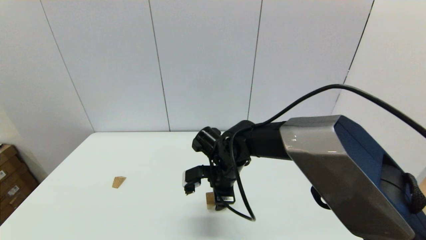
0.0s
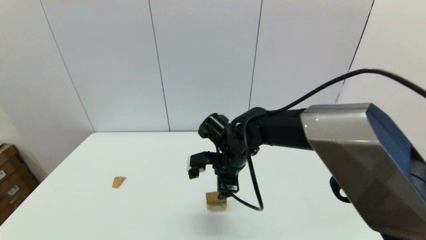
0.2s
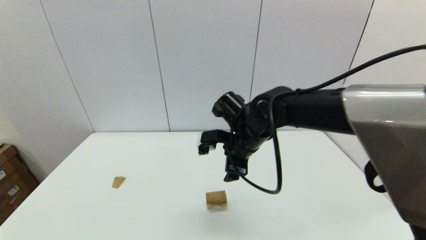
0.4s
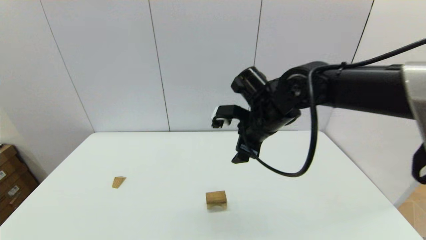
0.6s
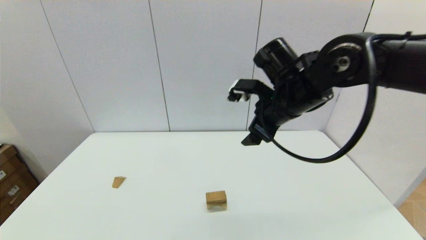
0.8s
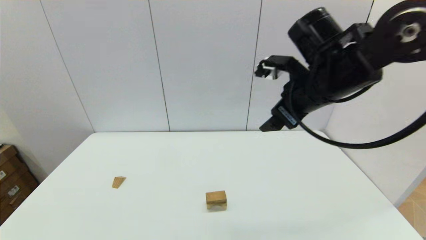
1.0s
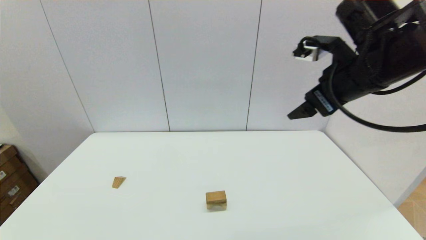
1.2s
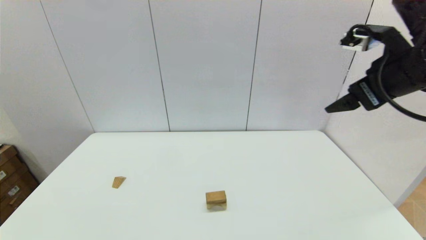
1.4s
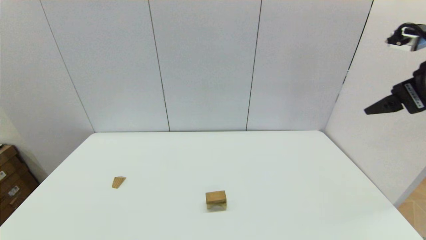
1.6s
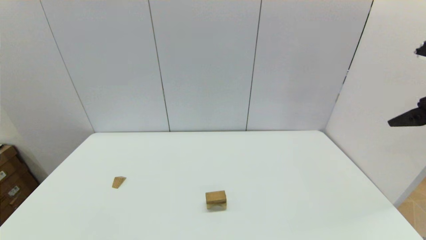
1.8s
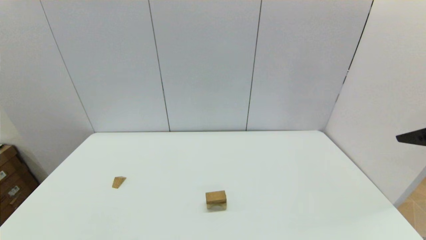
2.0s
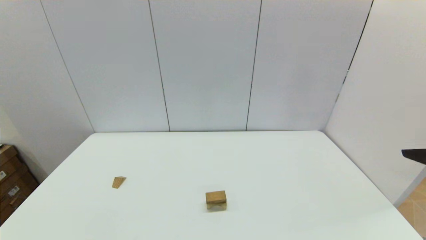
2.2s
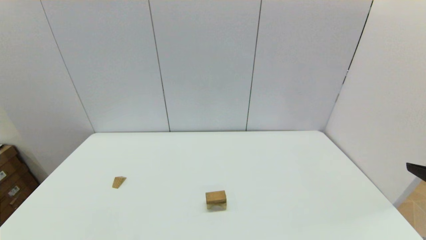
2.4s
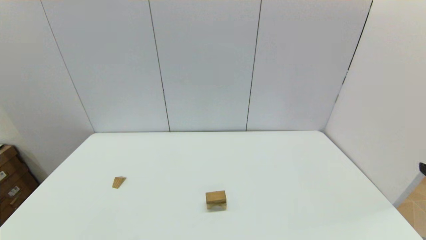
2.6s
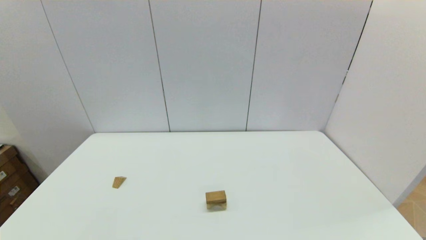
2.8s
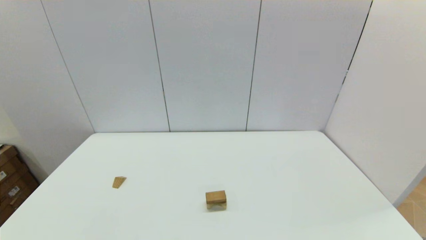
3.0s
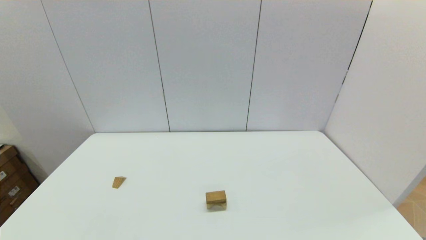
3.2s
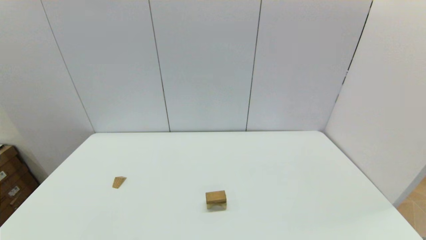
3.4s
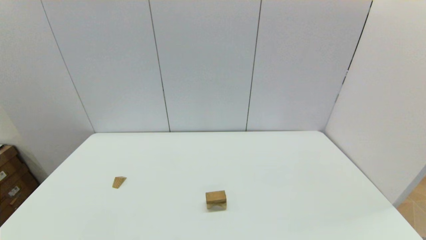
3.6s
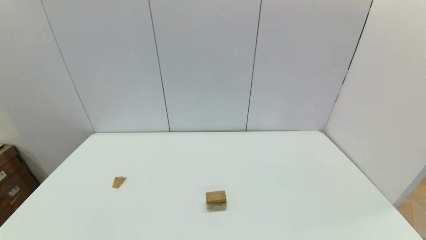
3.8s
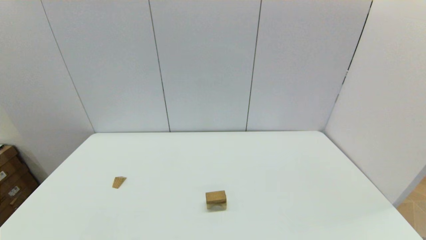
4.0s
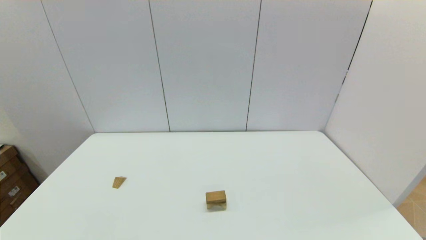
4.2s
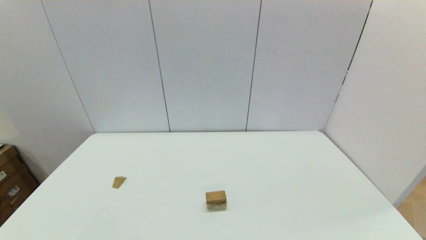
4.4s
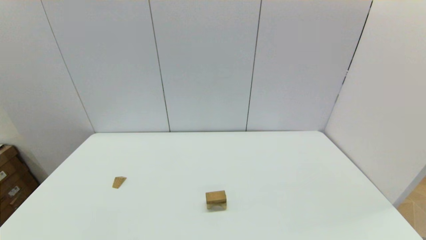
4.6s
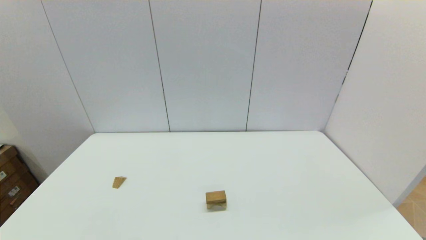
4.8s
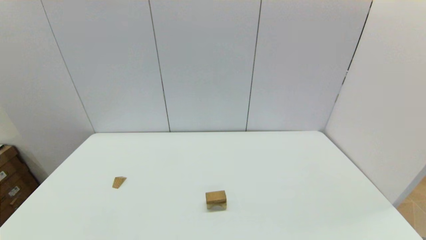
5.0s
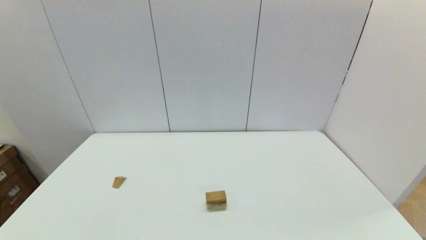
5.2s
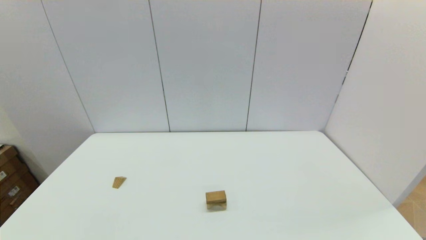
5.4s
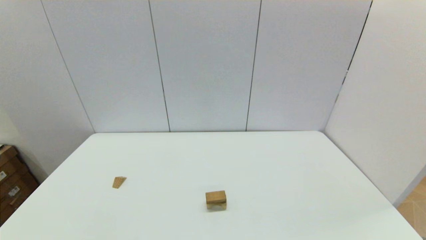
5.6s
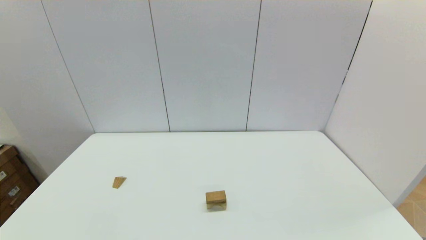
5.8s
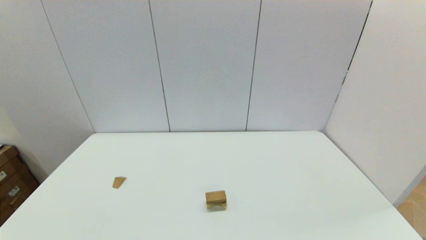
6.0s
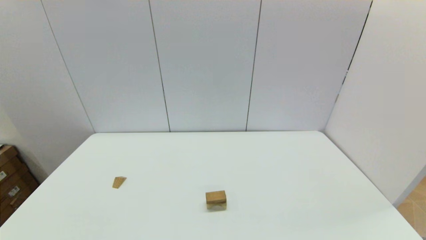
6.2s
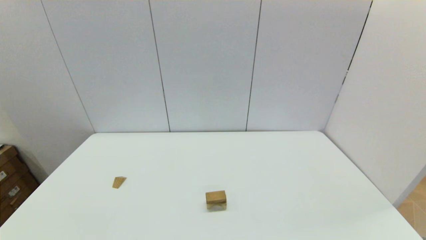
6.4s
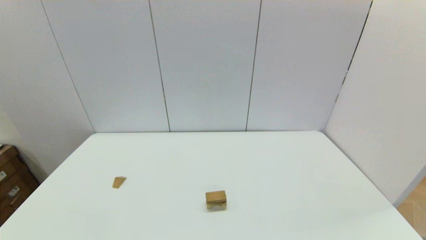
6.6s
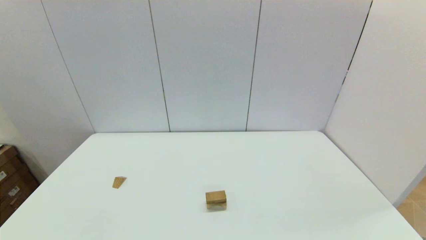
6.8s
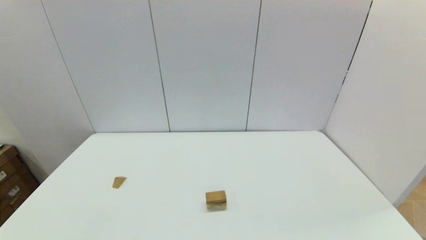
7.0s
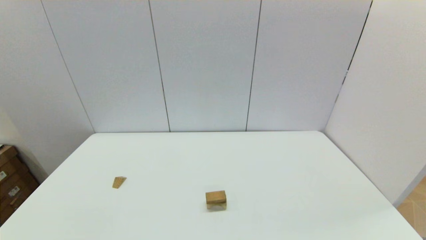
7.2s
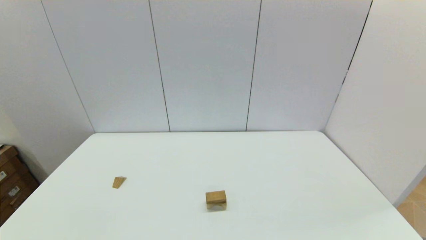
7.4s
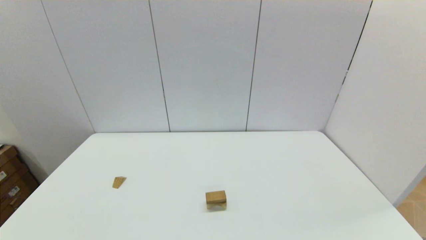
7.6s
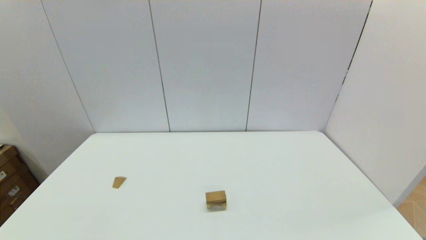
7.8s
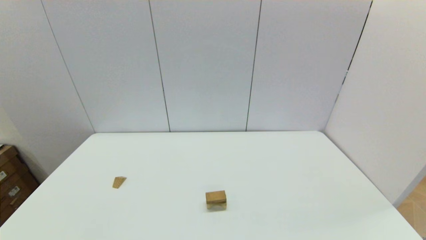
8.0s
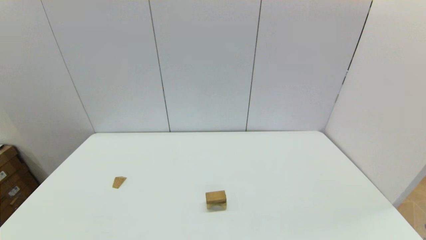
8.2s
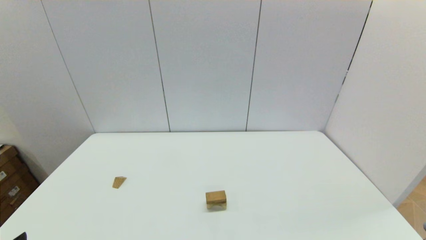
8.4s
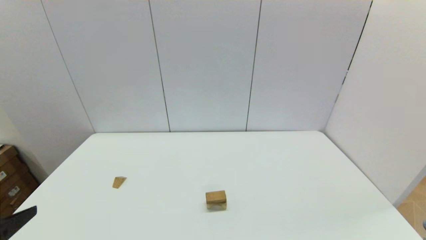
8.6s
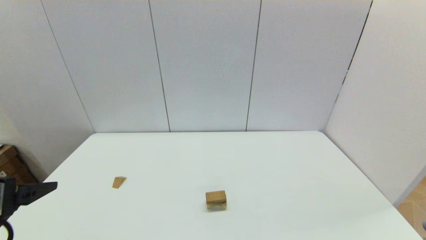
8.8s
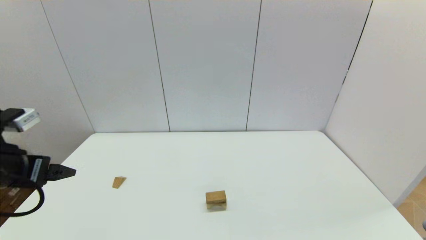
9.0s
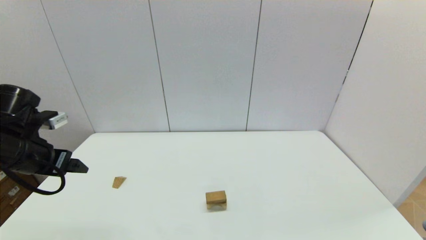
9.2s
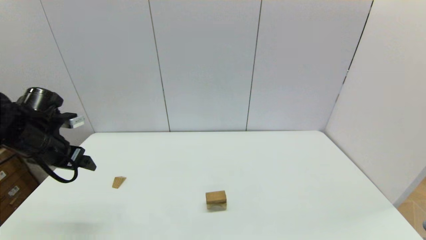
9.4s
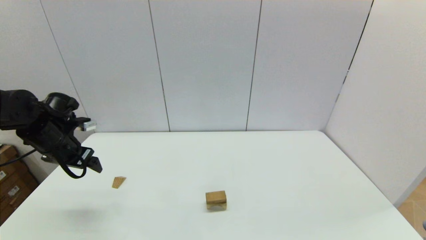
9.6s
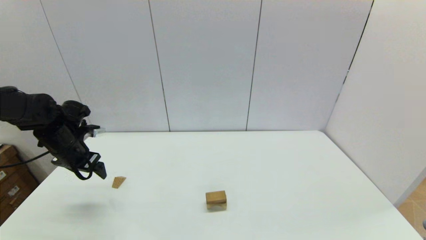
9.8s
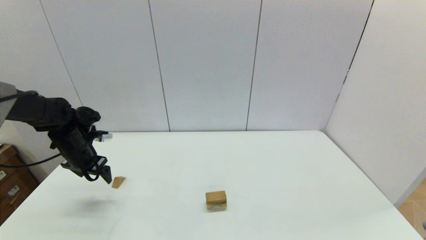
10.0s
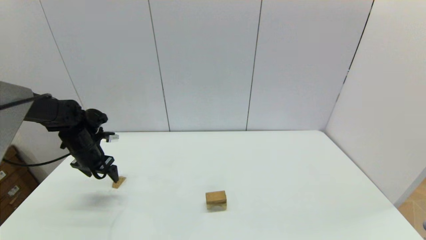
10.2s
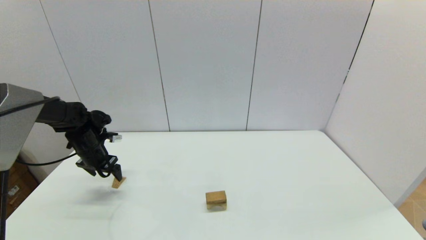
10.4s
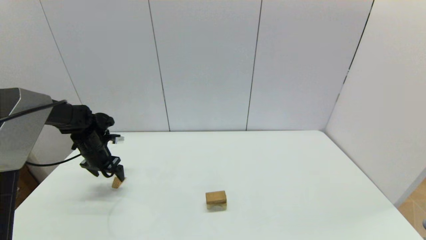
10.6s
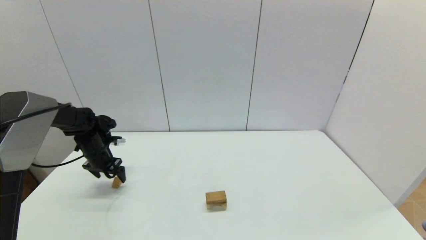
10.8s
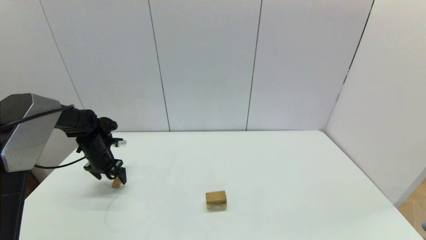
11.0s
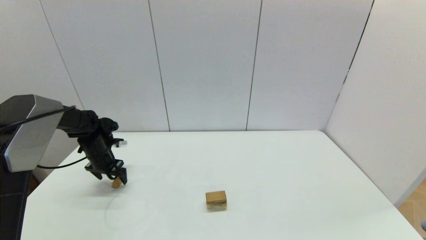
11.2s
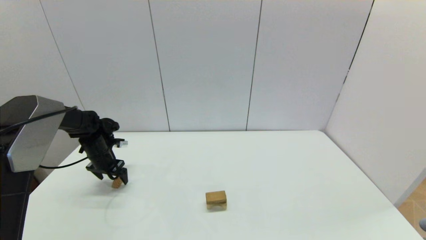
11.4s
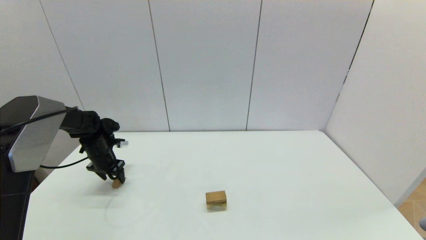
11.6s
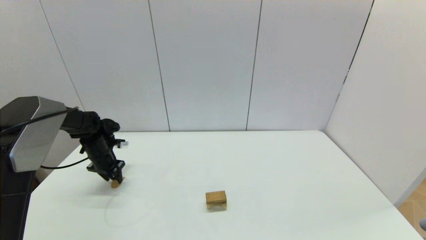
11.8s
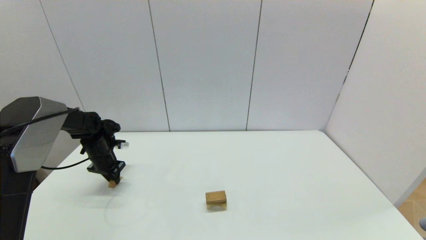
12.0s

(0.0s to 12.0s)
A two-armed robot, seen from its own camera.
Task of the whole recording: place the arched building blocks in the center of the table, set up the rectangular building blocks, and then set up the triangular building blocks.
Step, 0.2s - 11.8s: Grasp the triangle-shaped block with the left gripper.
0.0s - 1.6s: The right gripper moves to the right and upward, some 40 cm.
1.6s - 3.0s: The right gripper shifts approximately 25 cm backward and downward.
6.0s - 7.6s: Neither gripper changes place.
7.6s - 9.0s: The left gripper moves forward and upward, approximately 25 cm.
9.0s - 10.4s: The left gripper travels forward and downward by roughly 25 cm.
10.4s - 12.0s: The left gripper closes up.

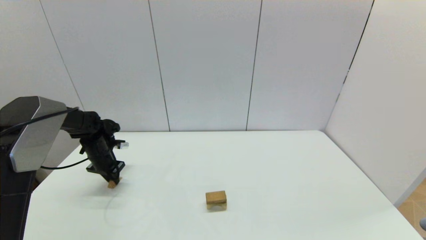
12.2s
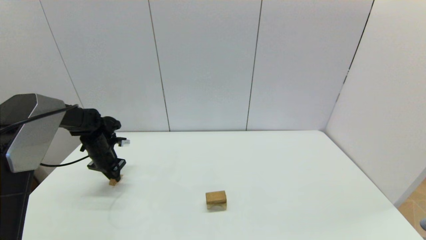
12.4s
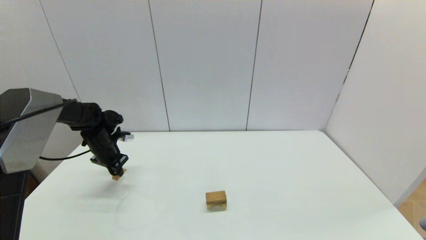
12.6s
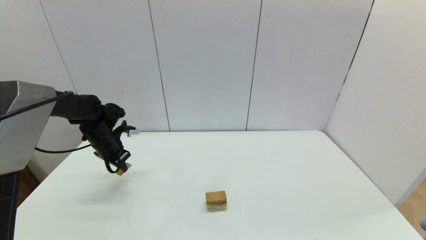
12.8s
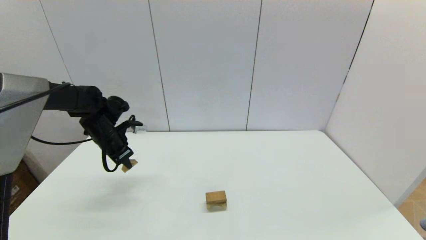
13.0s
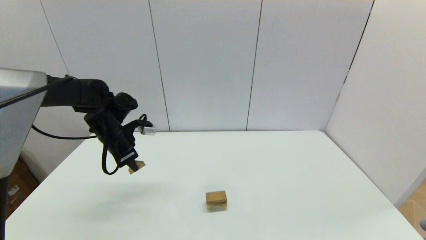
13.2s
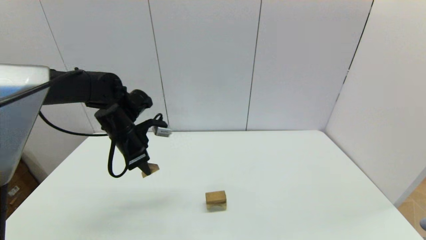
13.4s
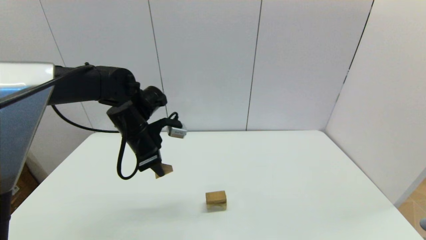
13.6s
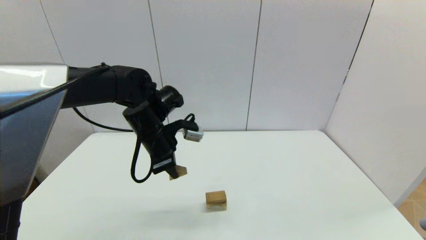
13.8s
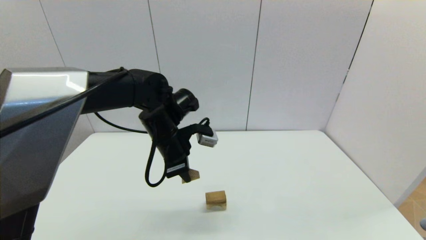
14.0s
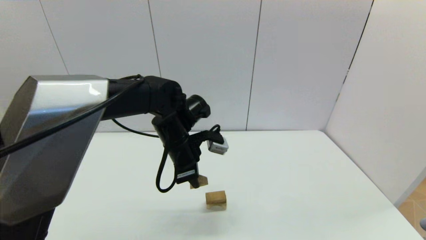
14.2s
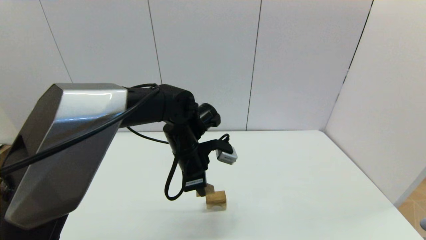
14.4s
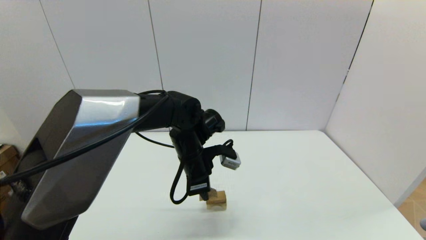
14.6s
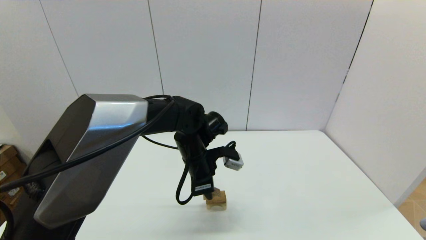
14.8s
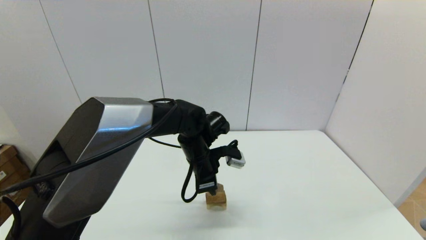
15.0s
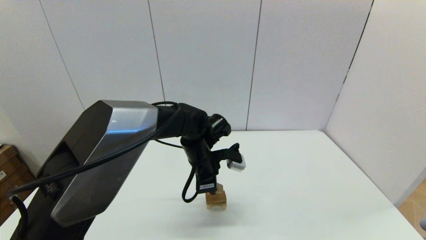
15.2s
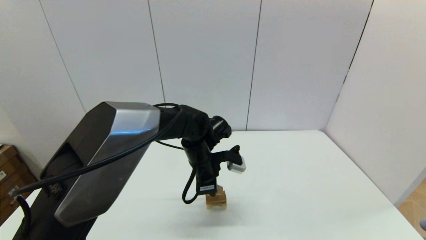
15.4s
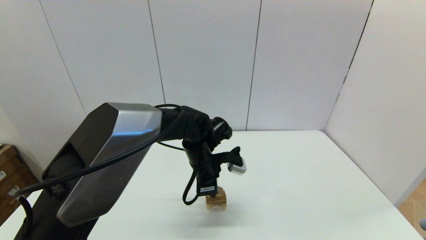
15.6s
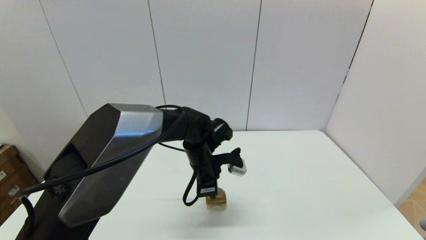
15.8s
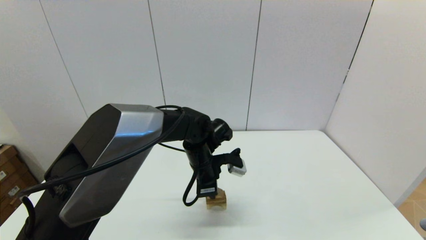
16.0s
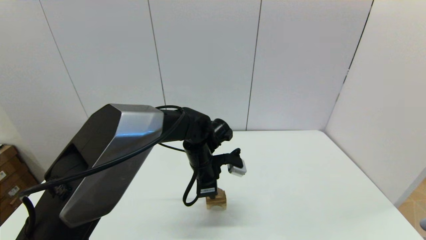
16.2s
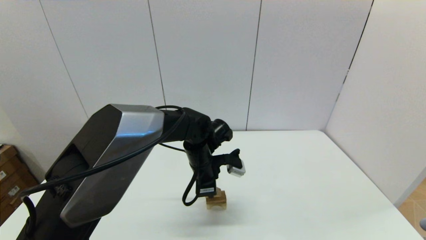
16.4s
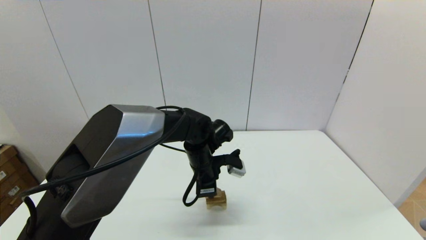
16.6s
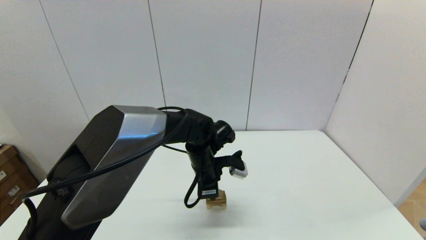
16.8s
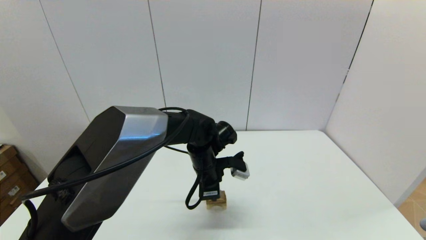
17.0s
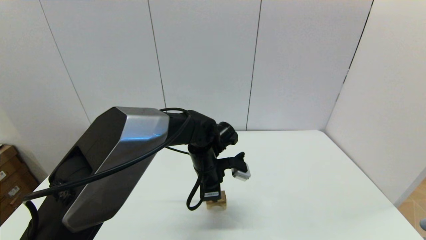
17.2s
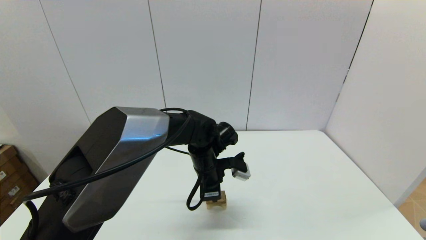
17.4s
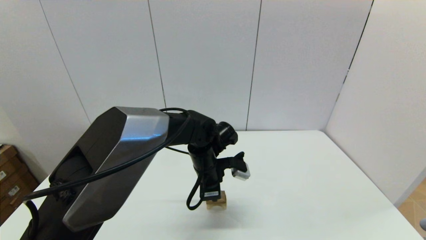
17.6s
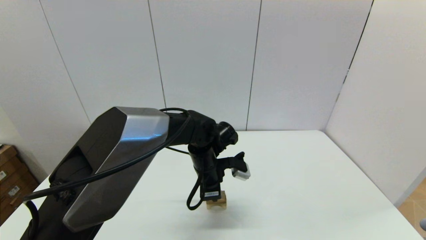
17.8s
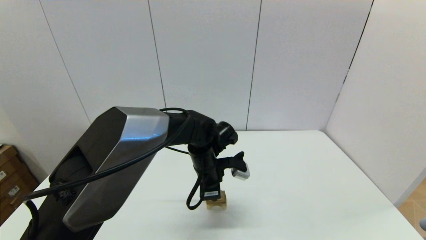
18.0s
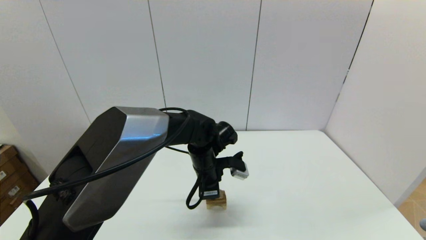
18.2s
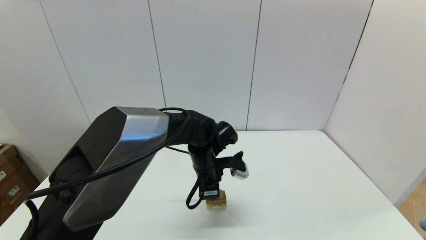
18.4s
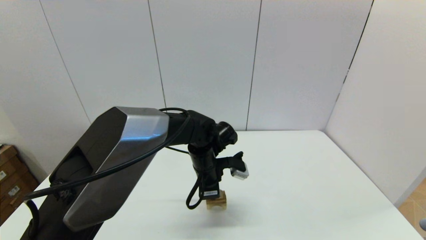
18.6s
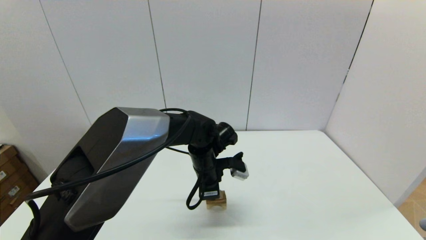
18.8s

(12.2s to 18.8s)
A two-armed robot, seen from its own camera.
Task of the whole recording: place the arched building blocks in the center of the table, set up the rectangular building blocks, and then set up the triangular building blocks.
12.2s - 13.8s: The left gripper moves to the right and upward, roughly 25 cm.
13.8s - 15.4s: The left gripper shifts roughly 15 cm to the right and downward.
15.4s - 17.2s: The grippers make only small movements.
17.2s - 18.8s: Both grippers stay about where they are.
